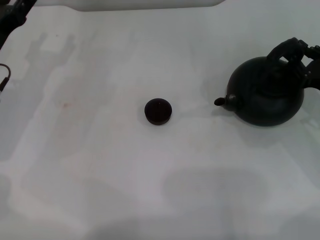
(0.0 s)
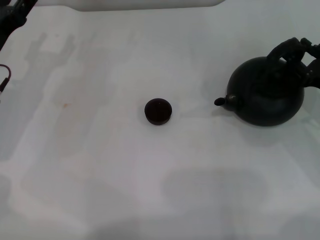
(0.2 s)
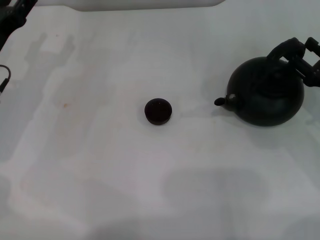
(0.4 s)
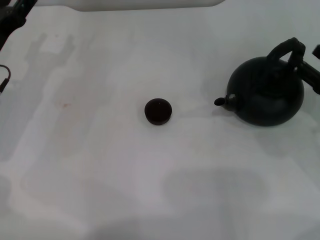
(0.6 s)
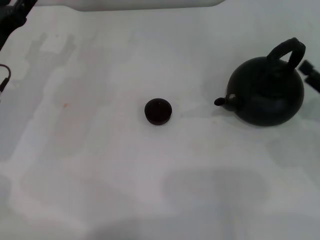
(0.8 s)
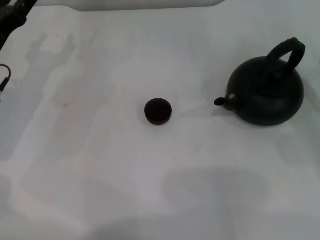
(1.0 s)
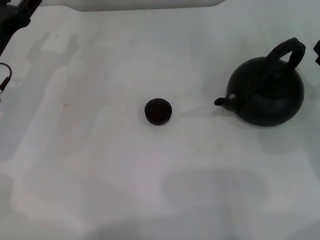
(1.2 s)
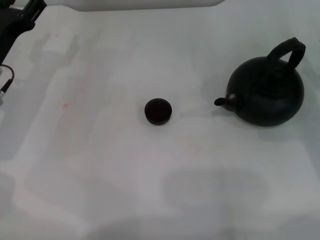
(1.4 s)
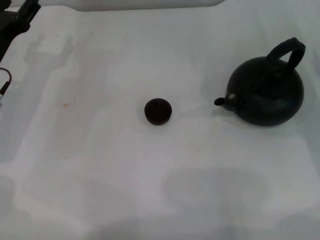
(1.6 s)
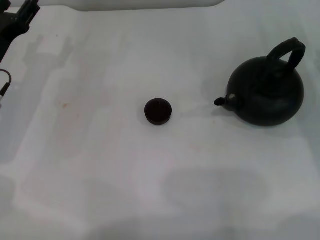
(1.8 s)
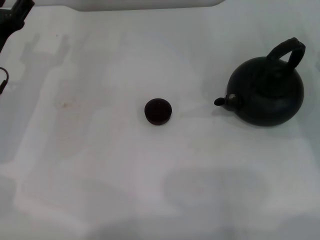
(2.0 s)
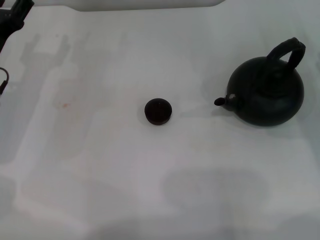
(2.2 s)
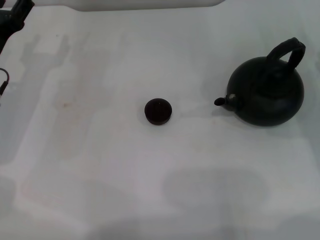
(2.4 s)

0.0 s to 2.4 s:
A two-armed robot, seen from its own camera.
Task of the whole recording: Grasp the handle of the teapot with one hand and pour tea into the teacup.
0.0 to 1.2 s: The right gripper opens.
